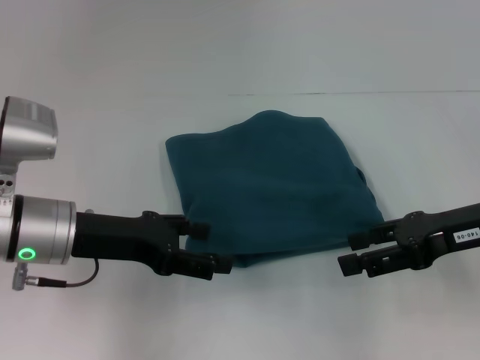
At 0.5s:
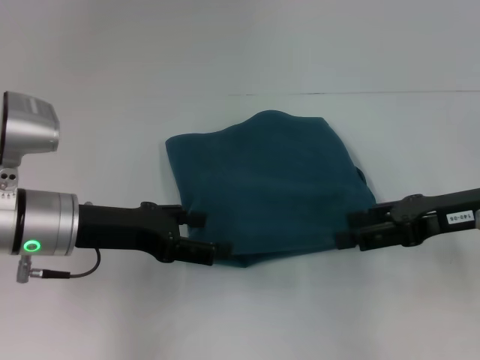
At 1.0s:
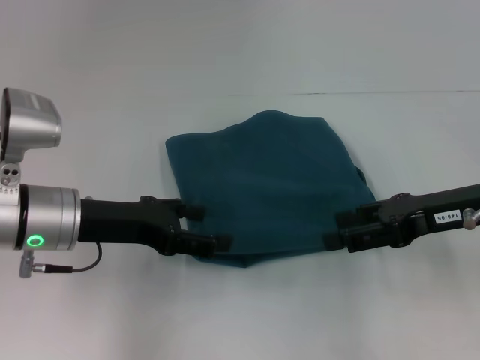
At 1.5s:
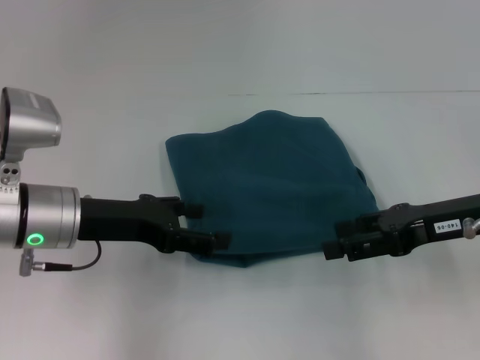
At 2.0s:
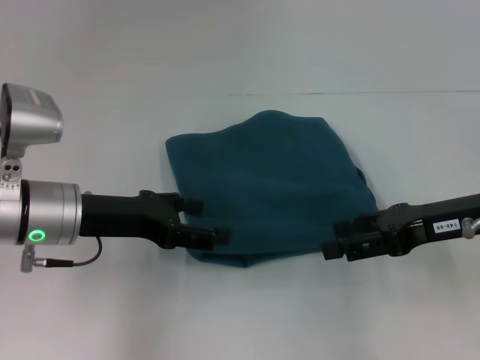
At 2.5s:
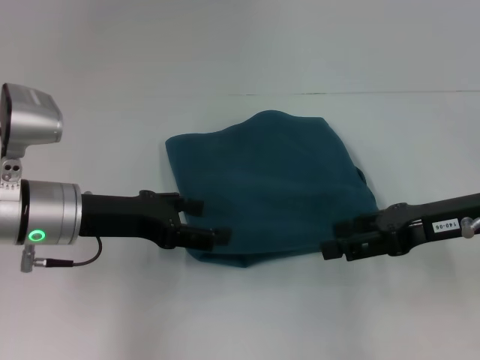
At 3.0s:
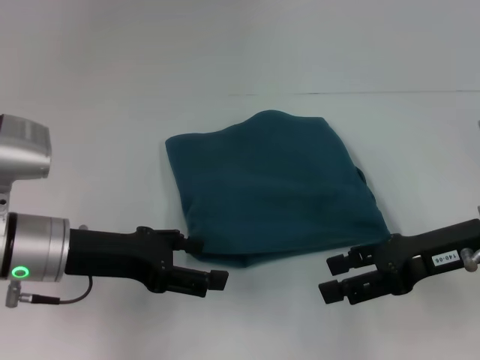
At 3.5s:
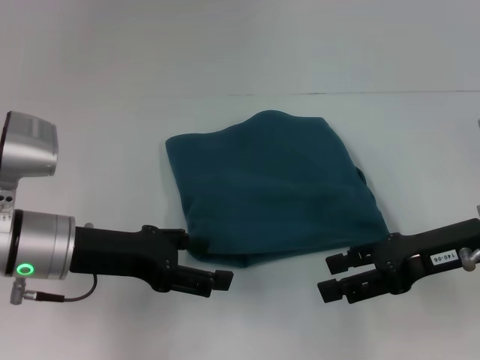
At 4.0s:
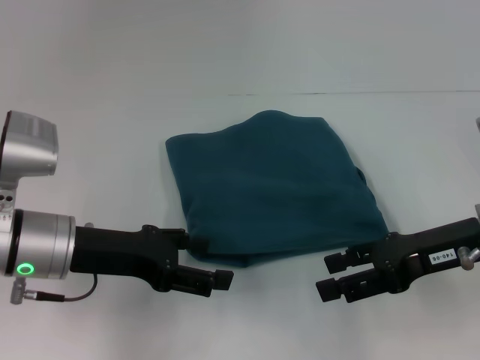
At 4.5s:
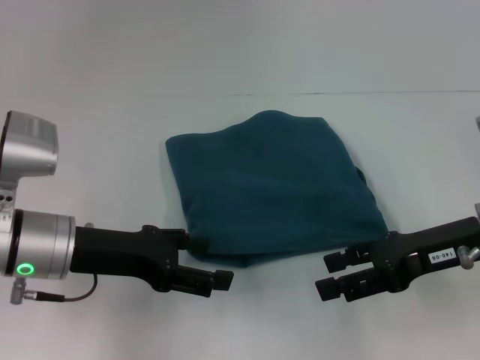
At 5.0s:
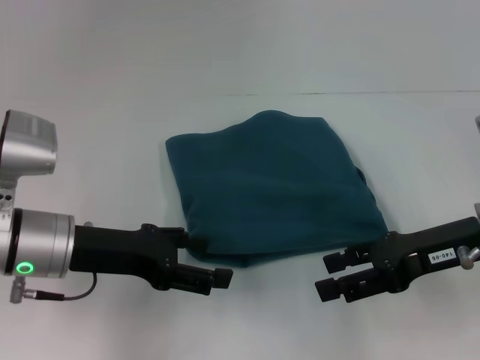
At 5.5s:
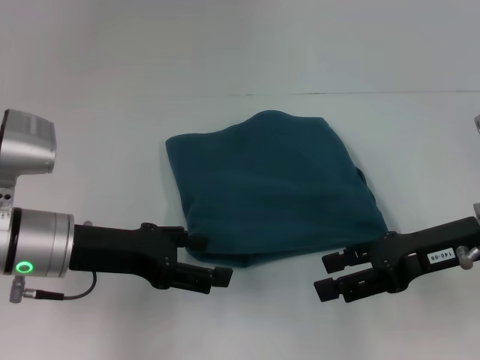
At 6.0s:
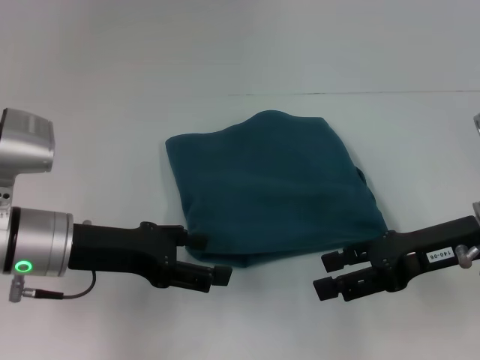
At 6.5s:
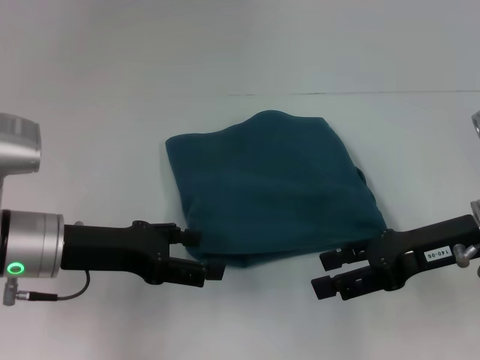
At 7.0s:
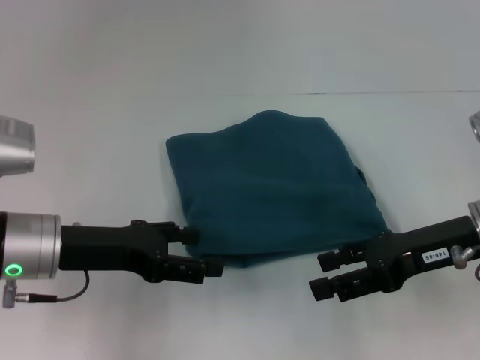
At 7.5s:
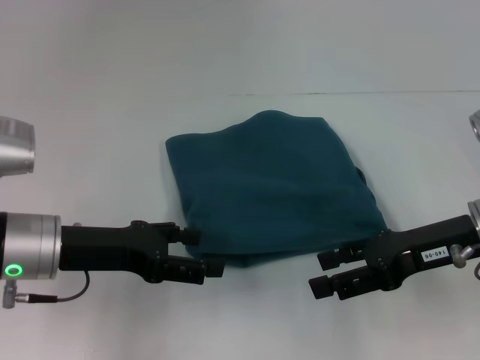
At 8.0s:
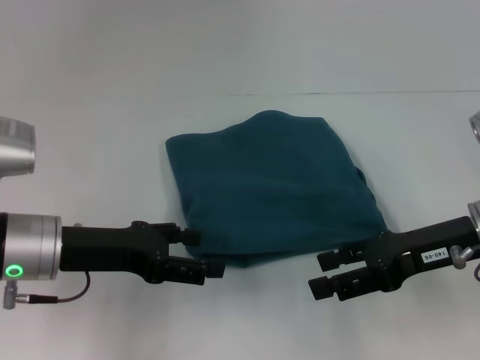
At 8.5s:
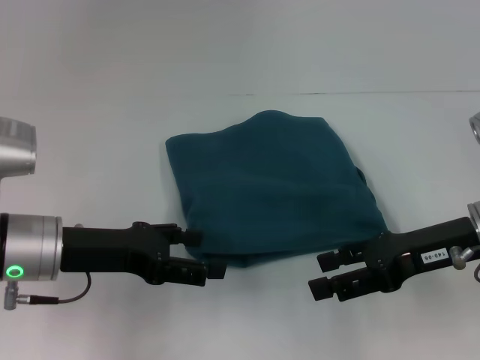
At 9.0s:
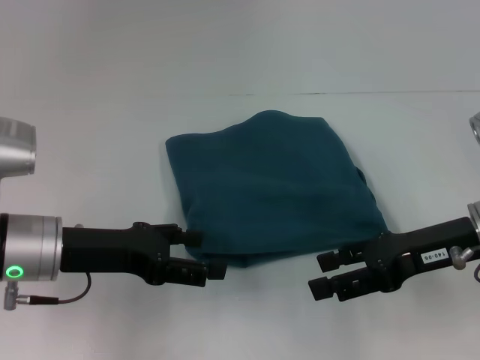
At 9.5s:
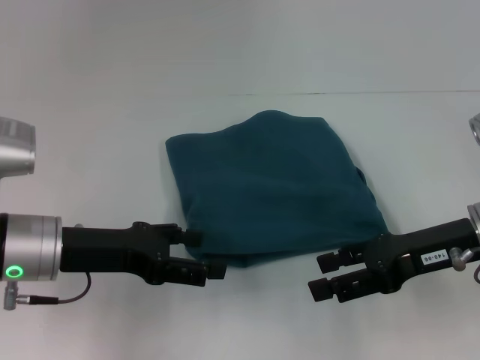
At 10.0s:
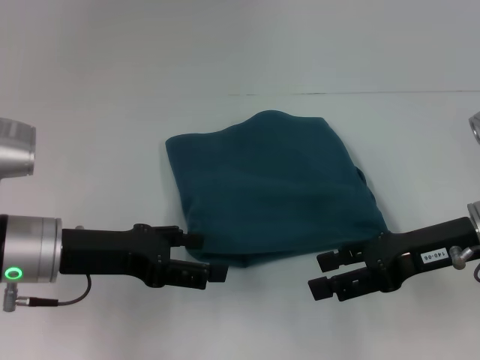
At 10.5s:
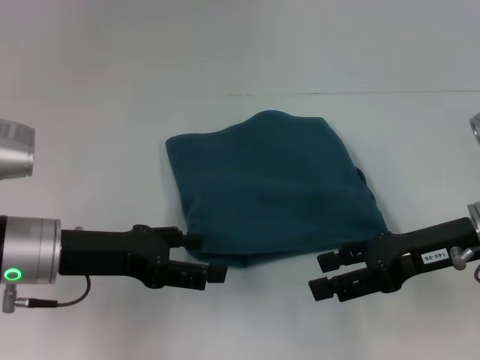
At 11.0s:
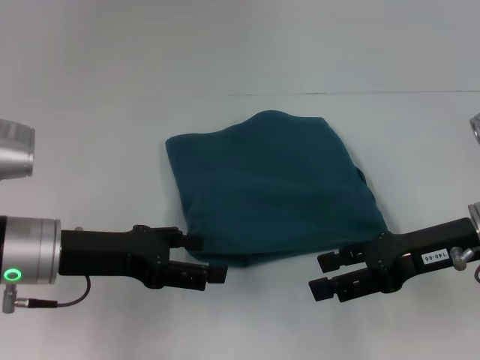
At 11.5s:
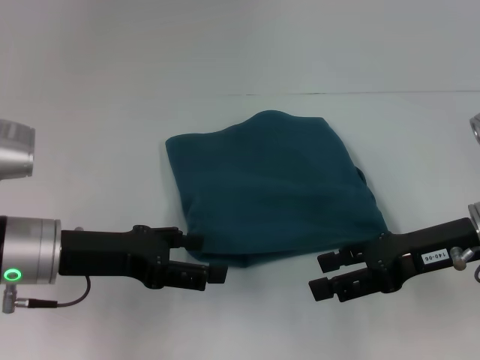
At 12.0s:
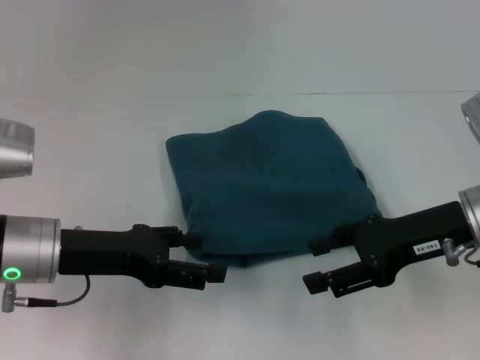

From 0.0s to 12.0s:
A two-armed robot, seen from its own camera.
From 0.0s to 4.0s: The grippers make only small movements.
From 4.0s to 6.0s: Neither gripper changes place.
From 6.0s to 10.0s: The two grippers keep their place.
From 10.0s to 12.0s: The grippers stay close to where they were, moving slightly.

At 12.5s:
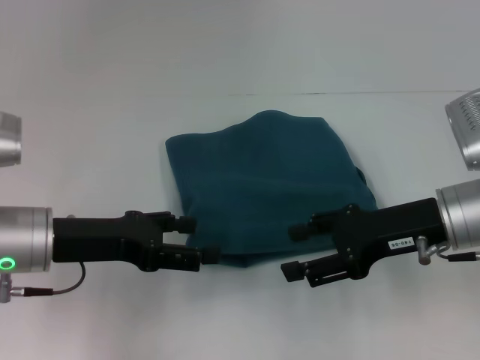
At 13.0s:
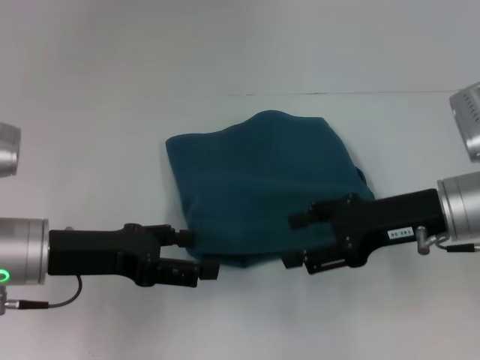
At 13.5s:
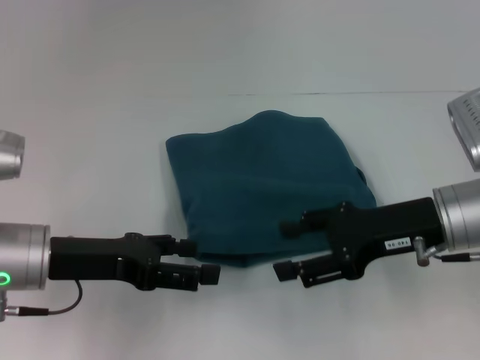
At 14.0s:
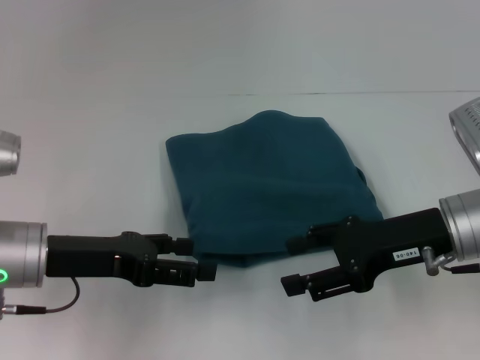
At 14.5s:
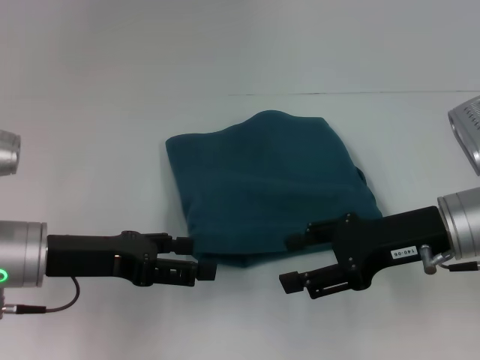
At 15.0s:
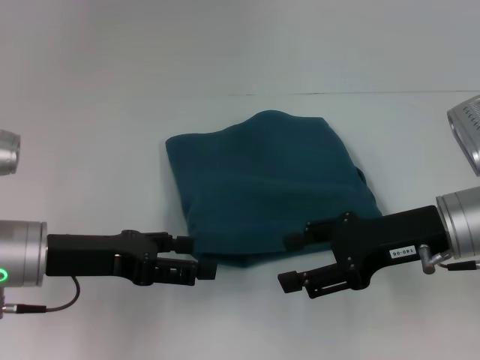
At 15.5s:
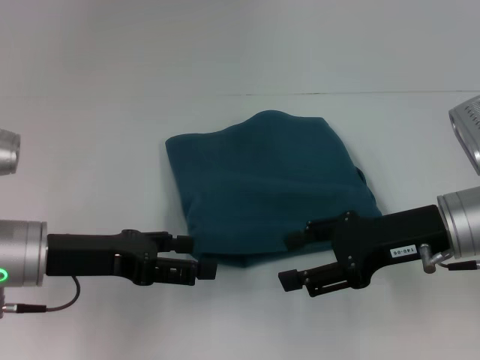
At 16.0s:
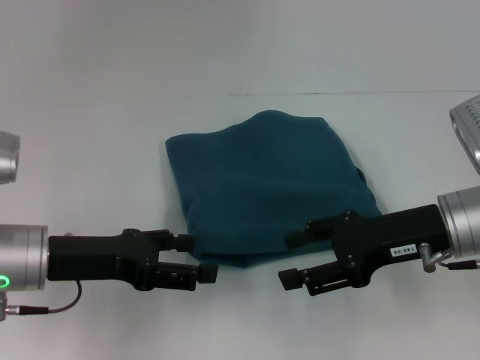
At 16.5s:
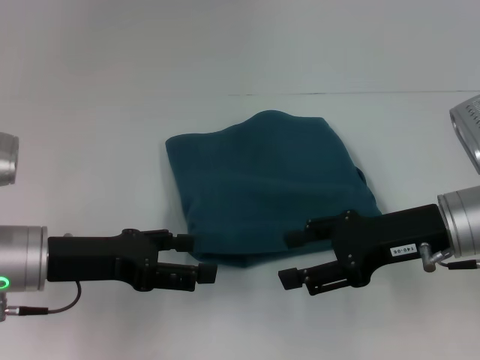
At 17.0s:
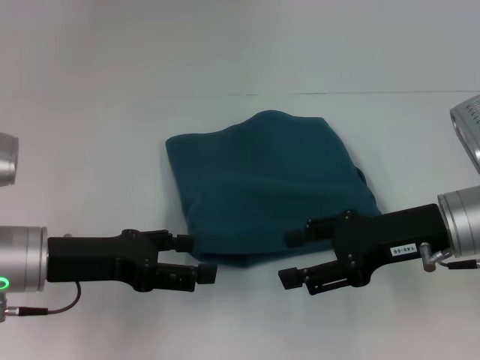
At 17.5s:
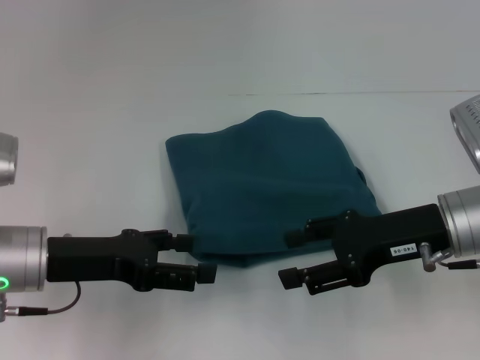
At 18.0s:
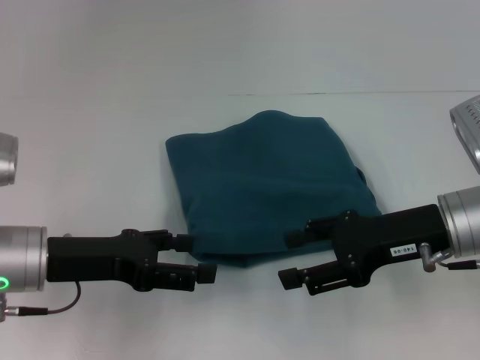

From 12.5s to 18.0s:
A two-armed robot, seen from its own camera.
From 12.5s to 14.5s: The grippers stay close to where they were, moving slightly.
From 14.5s to 16.0s: Neither gripper changes place.
From 16.0s to 18.0s: Both grippers stay about where they are.
